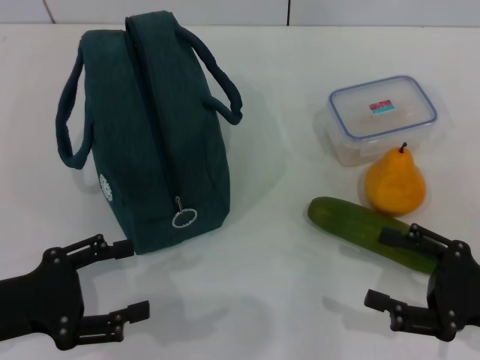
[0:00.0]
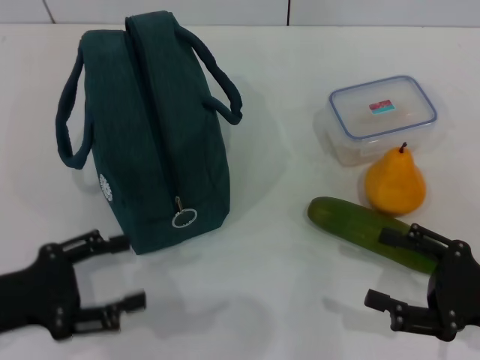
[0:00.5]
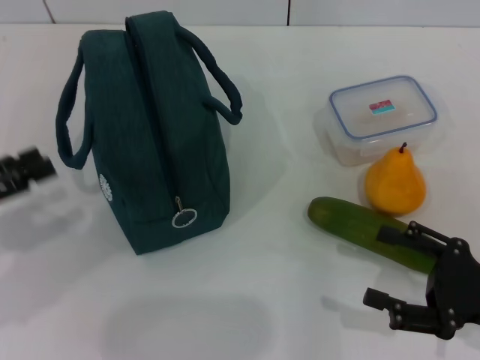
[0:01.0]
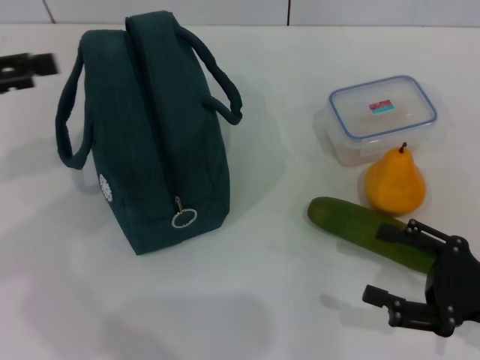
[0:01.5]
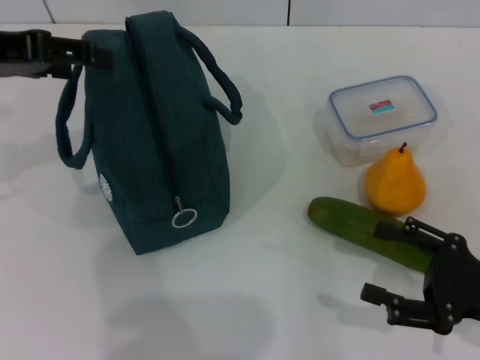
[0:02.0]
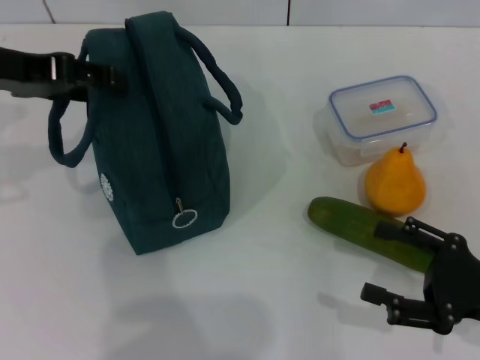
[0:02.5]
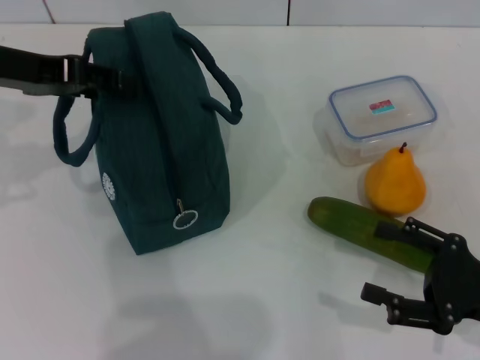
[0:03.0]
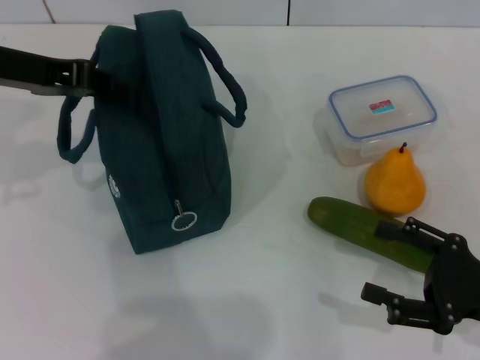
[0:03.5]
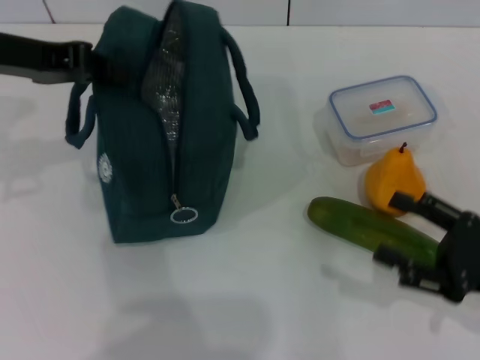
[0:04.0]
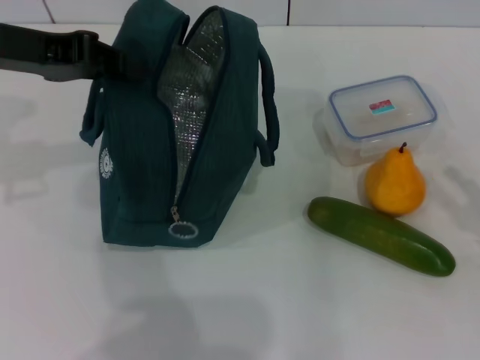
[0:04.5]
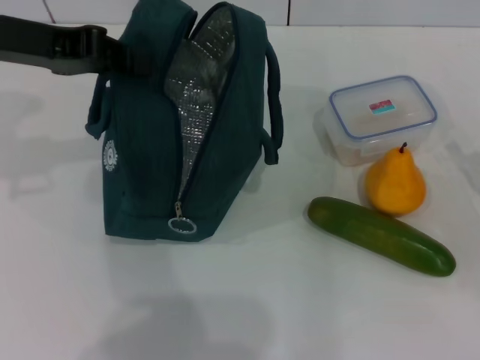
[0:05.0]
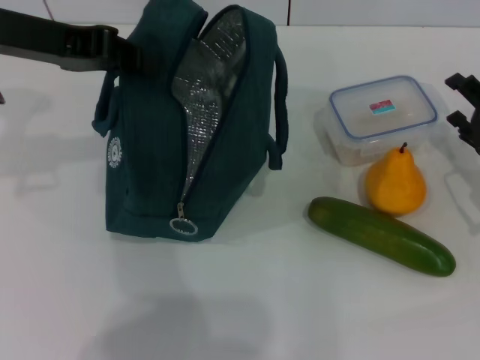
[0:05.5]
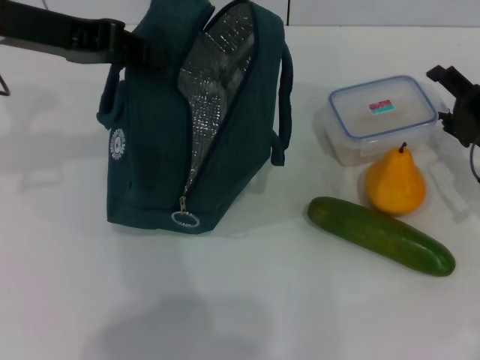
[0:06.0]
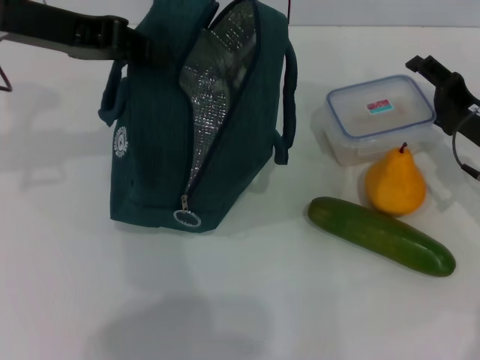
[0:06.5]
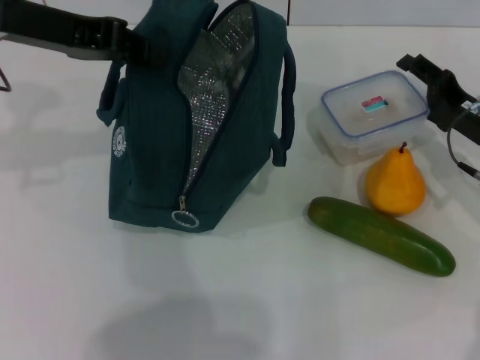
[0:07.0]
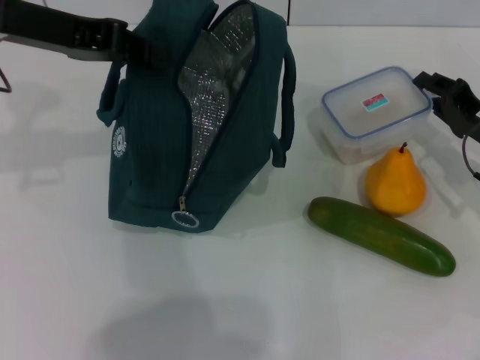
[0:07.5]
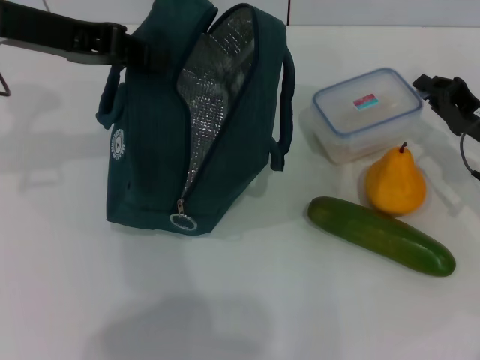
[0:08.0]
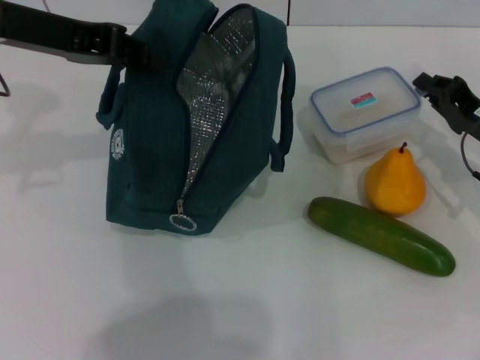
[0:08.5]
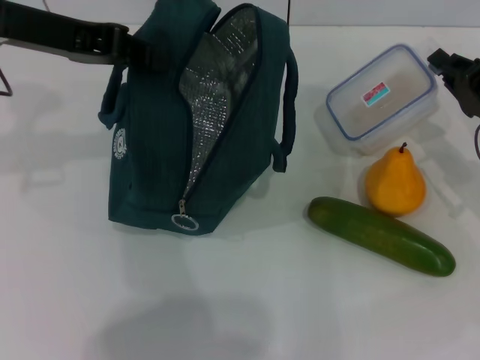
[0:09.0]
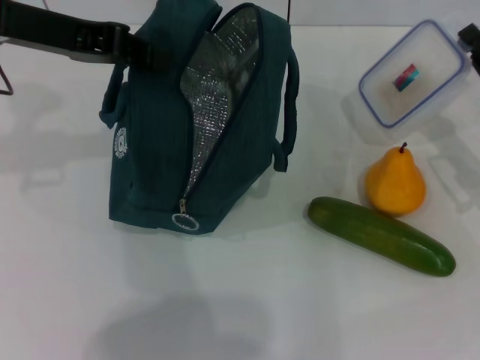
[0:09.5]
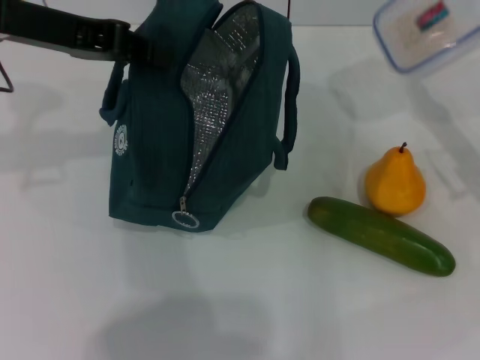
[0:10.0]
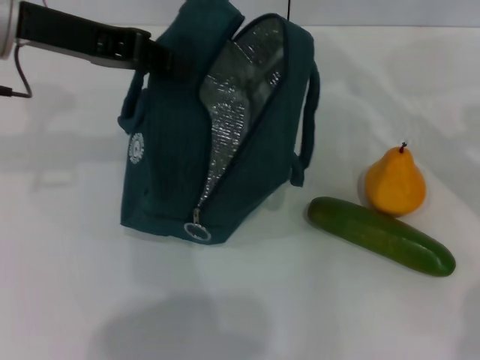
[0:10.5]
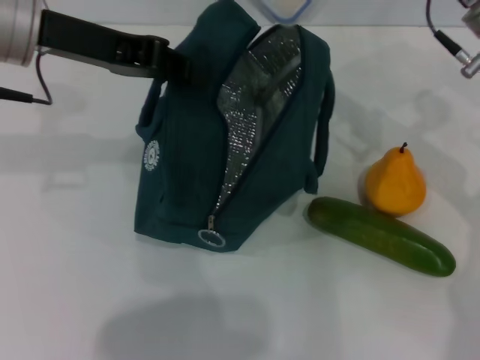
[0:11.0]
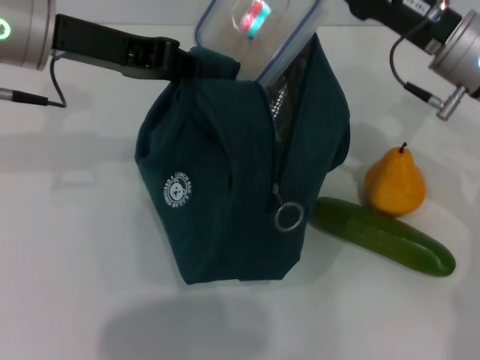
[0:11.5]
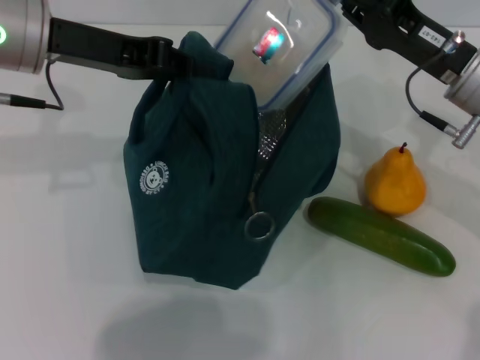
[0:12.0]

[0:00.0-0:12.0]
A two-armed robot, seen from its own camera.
Step, 0:00.0 to 0:04.0: Hold the lunch bag with your left hand.
Step, 0:04.5 to 0:08.0: Pick up the lunch box with your right hand.
0:00.0 to 0:02.0: The left gripper goes about 25 cm upward and forward.
0:02.0 to 0:04.0: The left gripper closes.
0:04.0 to 0:06.0: The right gripper moves forward, roughly 15 cm.
0:06.0 to 0:08.0: The right gripper closes its fingers.
0:08.0 to 0:10.0: The right gripper travels upward by about 5 cm.
0:10.0 to 0:12.0: The right gripper is displaced to the left by about 10 cm.

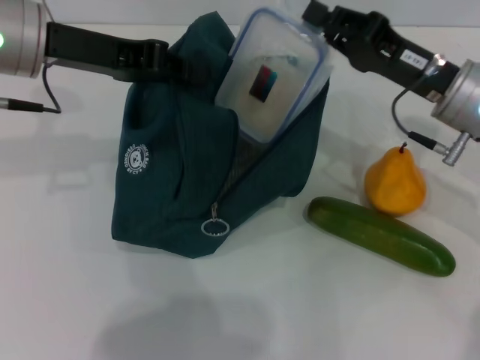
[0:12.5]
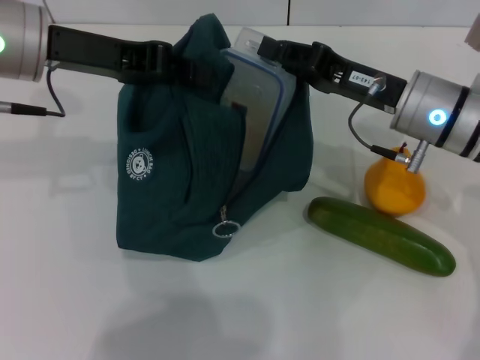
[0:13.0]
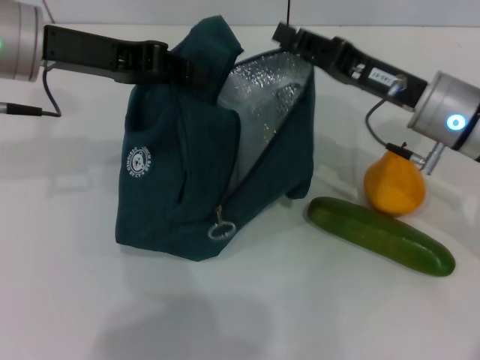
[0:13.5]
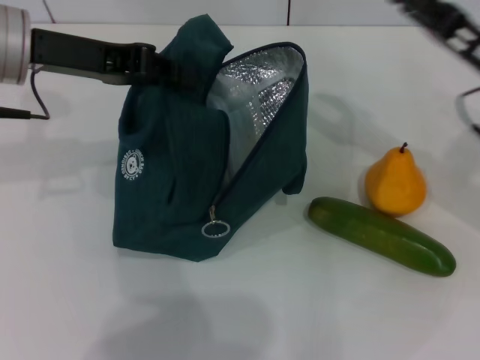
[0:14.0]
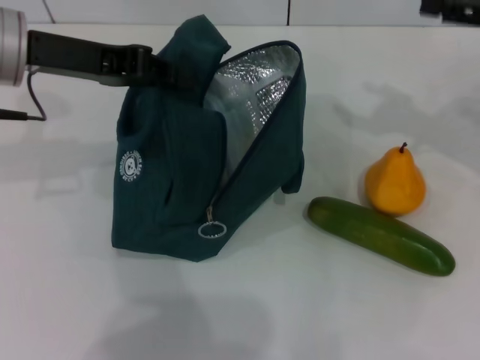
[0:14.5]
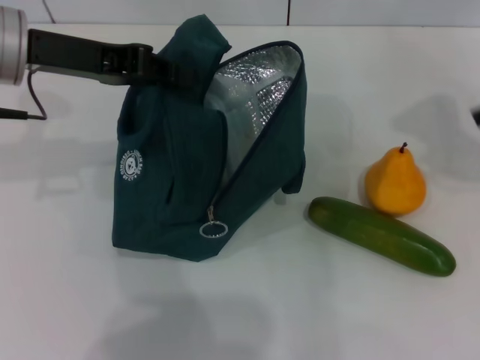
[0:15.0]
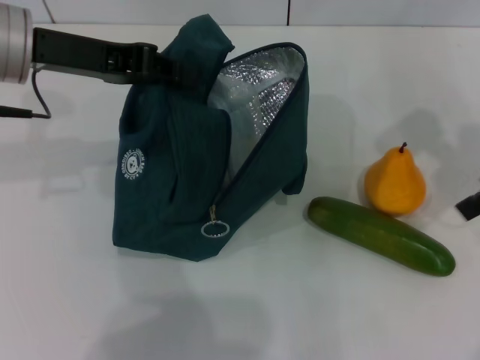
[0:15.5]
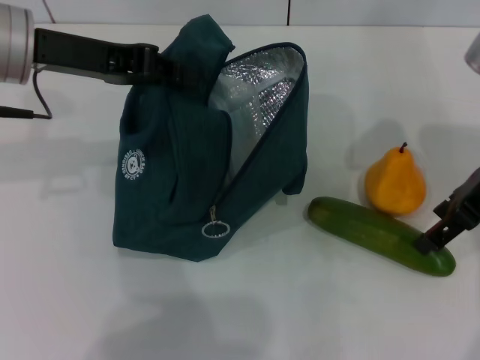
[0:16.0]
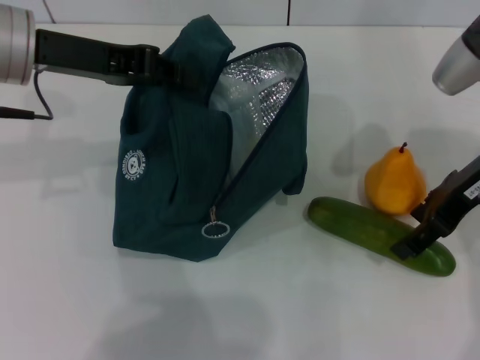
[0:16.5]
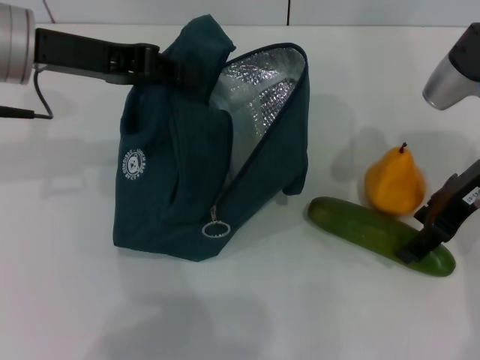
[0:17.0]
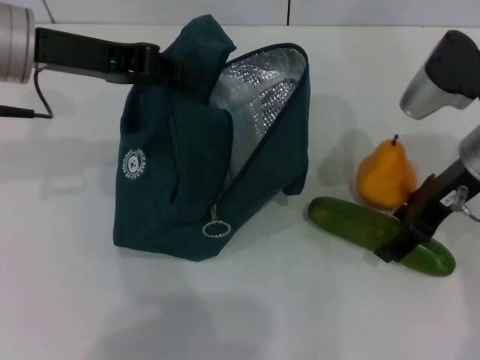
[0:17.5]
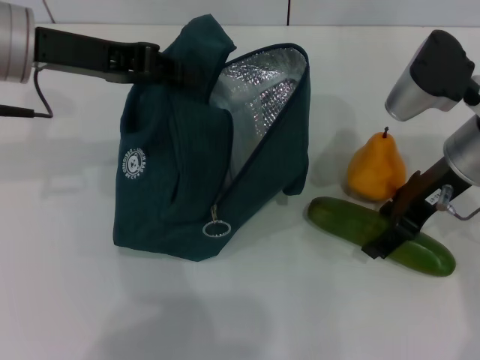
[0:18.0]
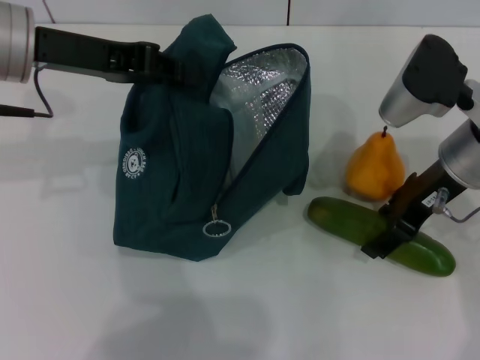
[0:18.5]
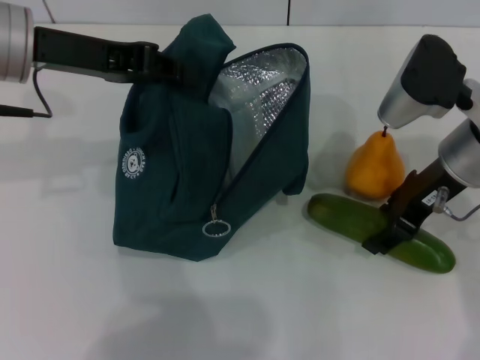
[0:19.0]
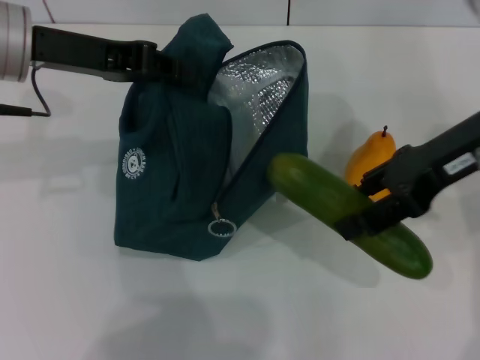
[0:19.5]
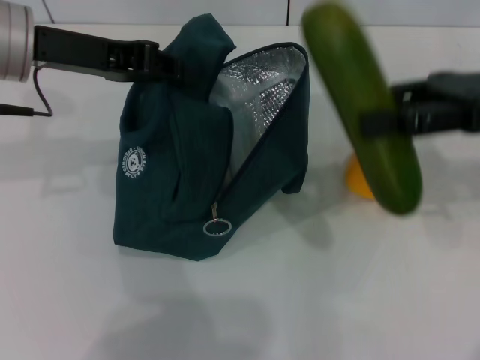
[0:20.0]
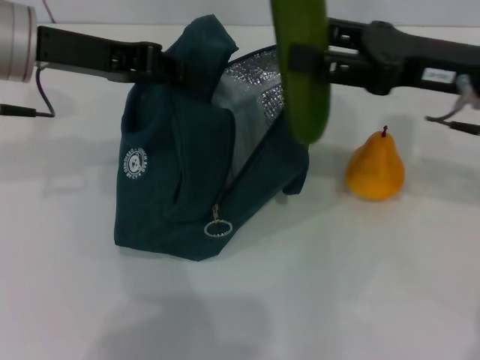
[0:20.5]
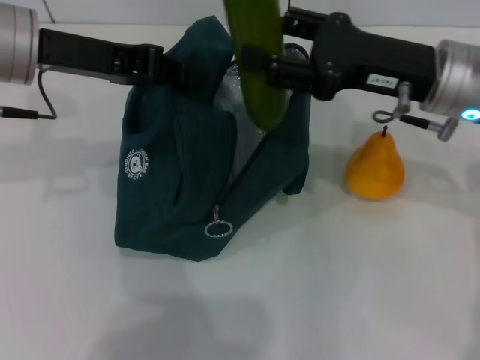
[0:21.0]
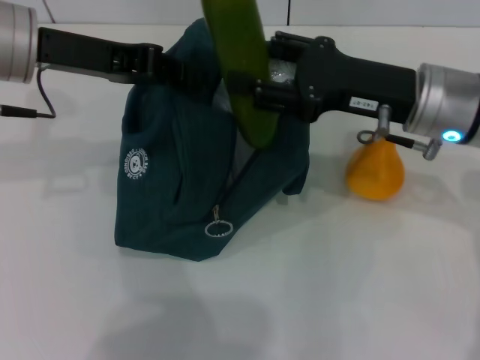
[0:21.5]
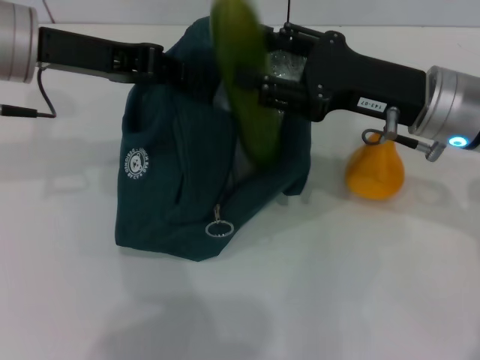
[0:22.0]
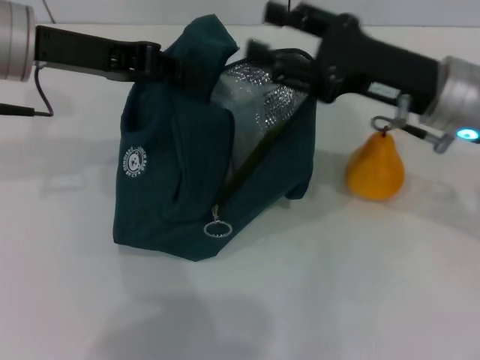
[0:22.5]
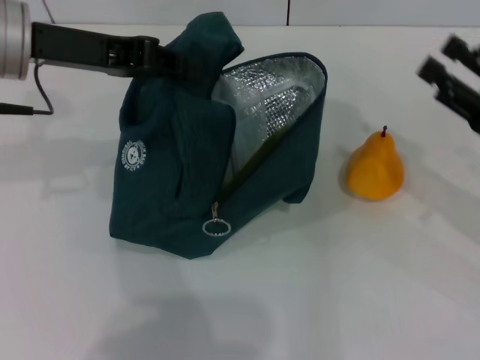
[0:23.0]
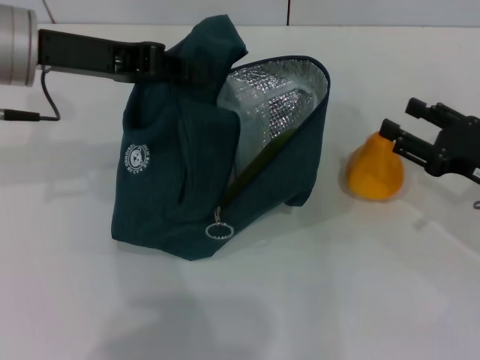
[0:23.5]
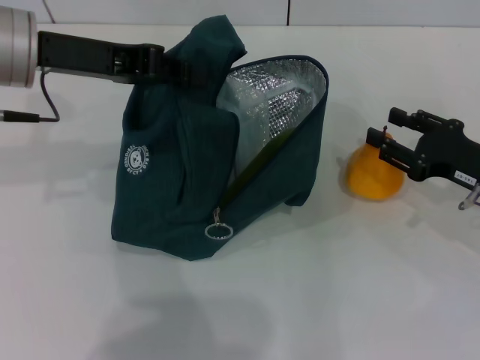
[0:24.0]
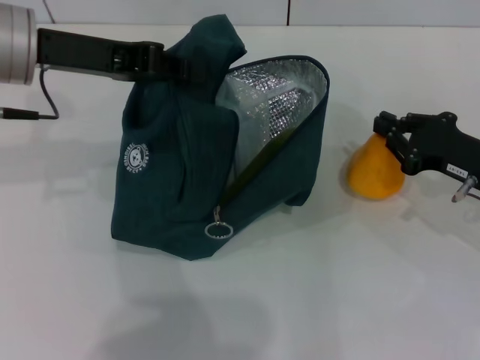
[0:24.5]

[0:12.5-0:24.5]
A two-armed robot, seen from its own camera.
Step, 0:14.0 to 0:18.5: Pick up the cucumber with your right hand.
Step, 0:19.0 to 0:22.5: Put the cucumber into the lunch bag with your right hand.
Step, 0:23.0 to 0:24.5: Grab the pear with your right hand.
0:12.5 to 0:14.5: The right gripper heads to the right and upward, covering about 15 cm, and opens its fingers.
0:14.5 to 0:16.5: The right gripper is displaced to the left by about 10 cm.
0:16.5 to 0:18.5: The grippers make only small movements.
0:20.5 to 0:22.5: The grippers make only small movements.
0:22.5 to 0:24.5: The right gripper moves to the right and downward, approximately 15 cm, and closes.

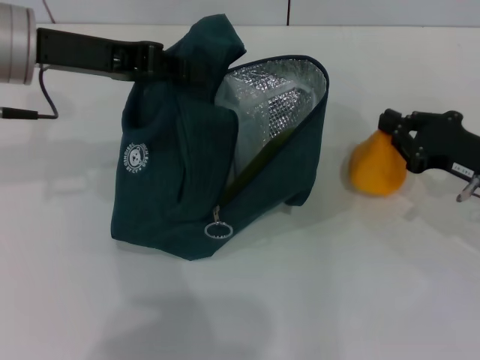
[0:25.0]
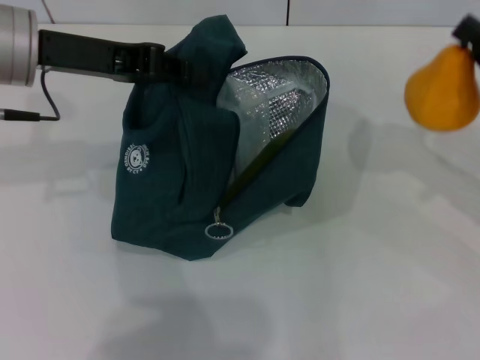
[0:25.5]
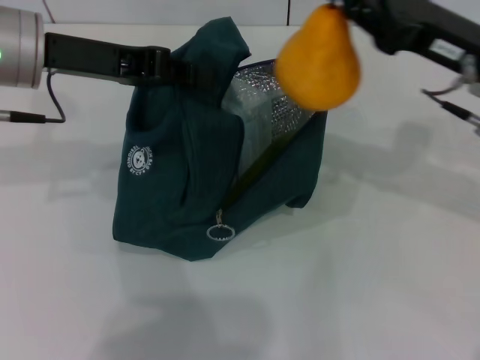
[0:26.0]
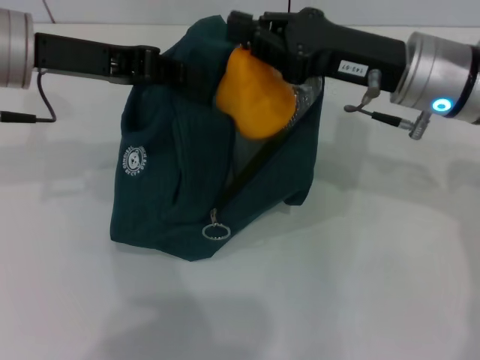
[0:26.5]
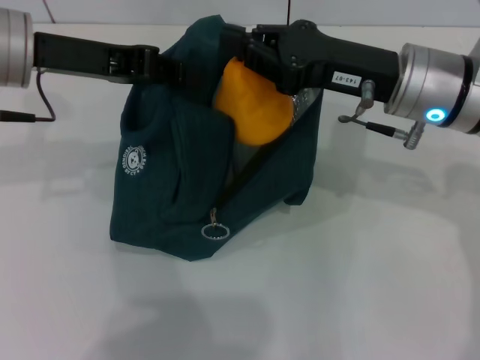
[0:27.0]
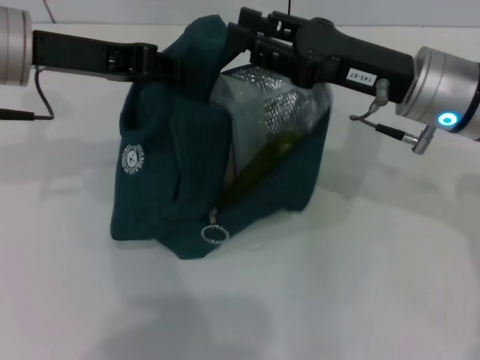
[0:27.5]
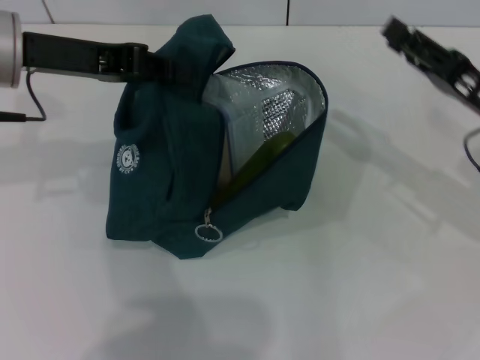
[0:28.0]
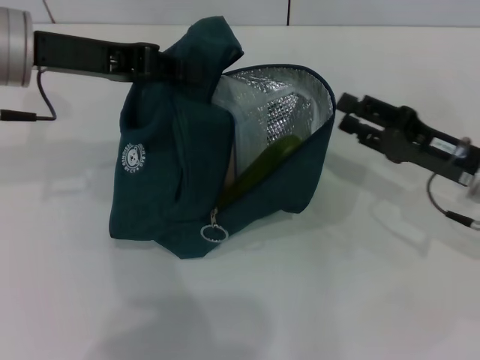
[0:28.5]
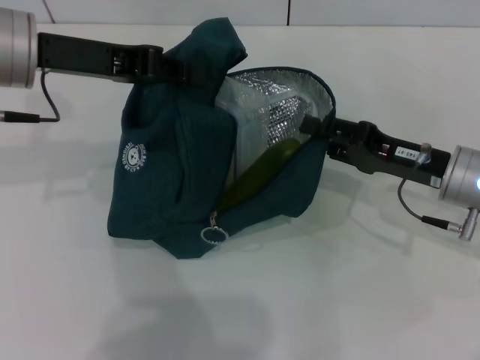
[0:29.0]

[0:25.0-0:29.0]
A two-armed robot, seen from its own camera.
0:25.0 to 0:27.0: The right gripper shifts about 15 cm to the left and upward.
0:27.0 to 0:29.0: The right gripper is displaced downward and to the right by some 10 cm, and opens up.
